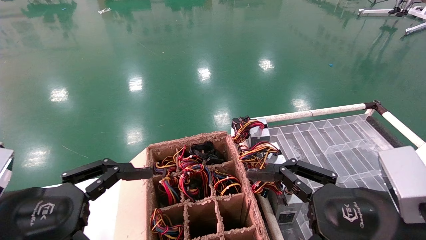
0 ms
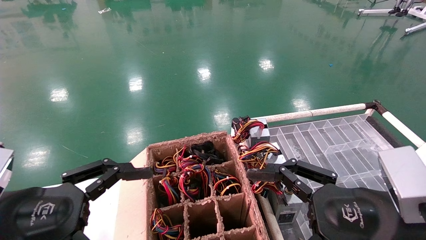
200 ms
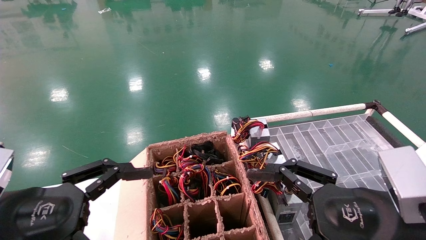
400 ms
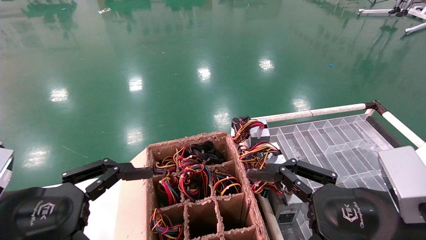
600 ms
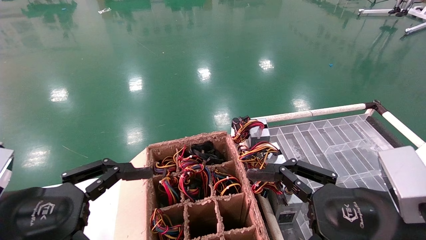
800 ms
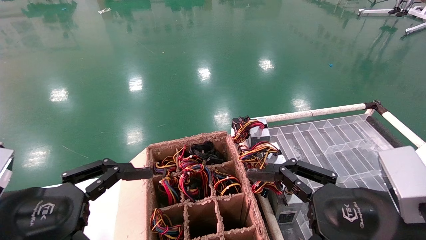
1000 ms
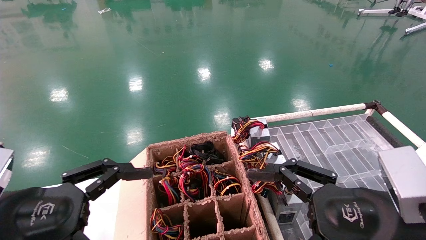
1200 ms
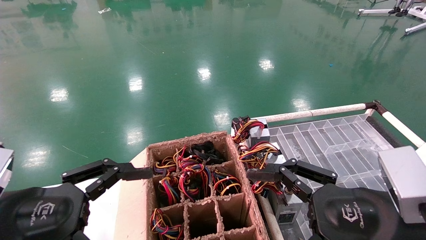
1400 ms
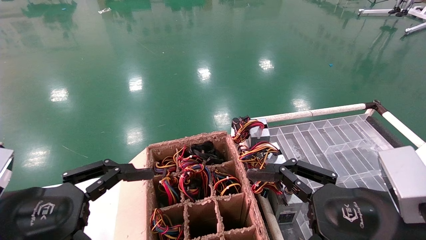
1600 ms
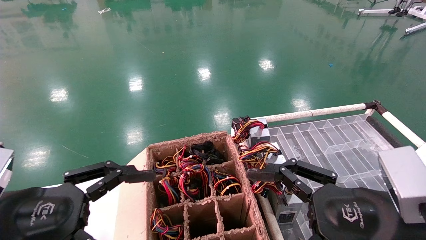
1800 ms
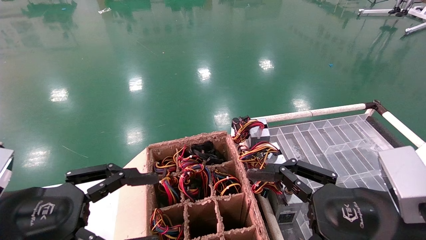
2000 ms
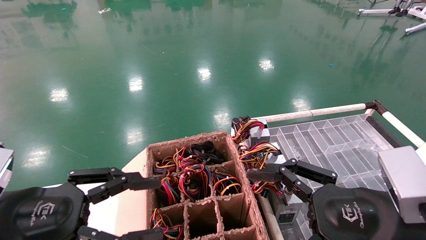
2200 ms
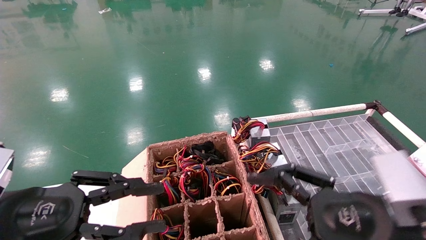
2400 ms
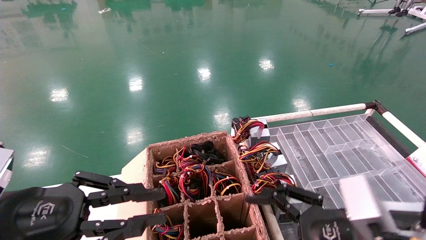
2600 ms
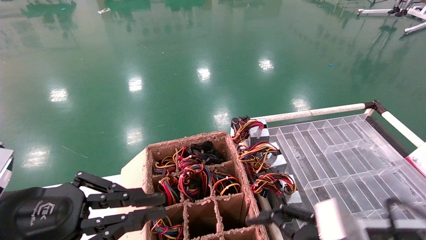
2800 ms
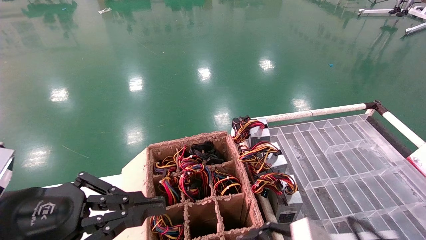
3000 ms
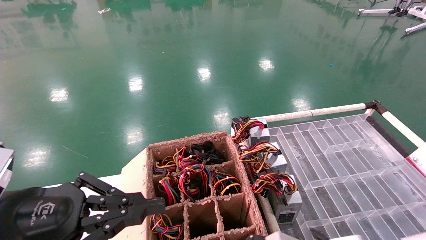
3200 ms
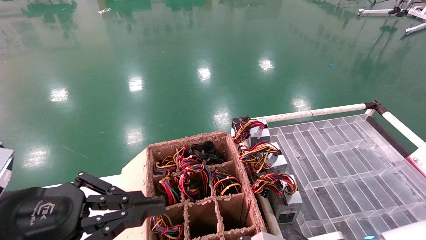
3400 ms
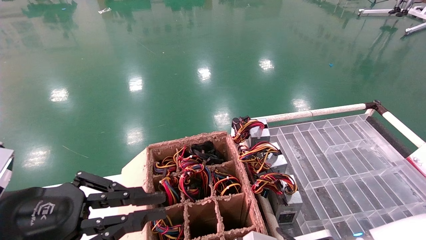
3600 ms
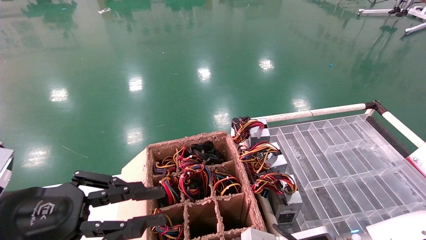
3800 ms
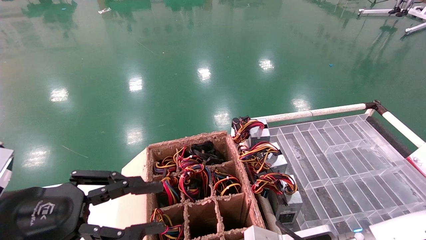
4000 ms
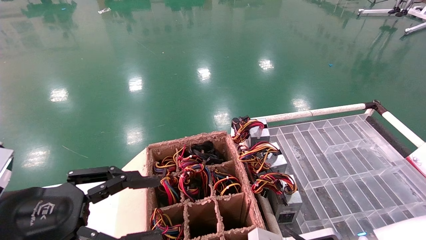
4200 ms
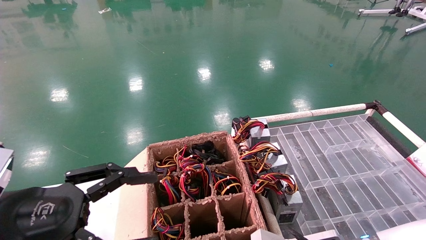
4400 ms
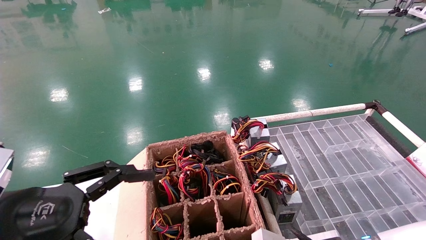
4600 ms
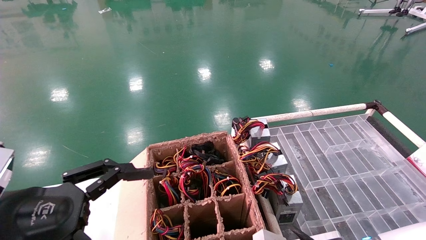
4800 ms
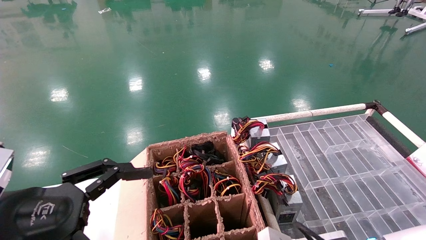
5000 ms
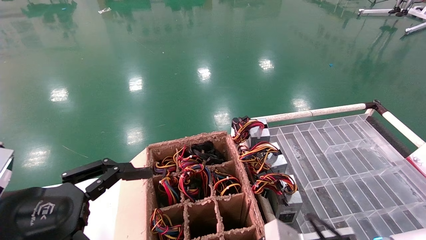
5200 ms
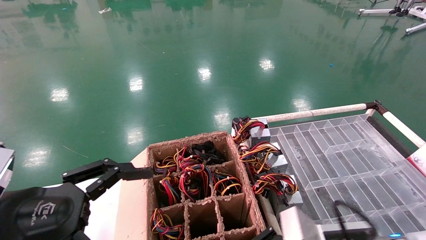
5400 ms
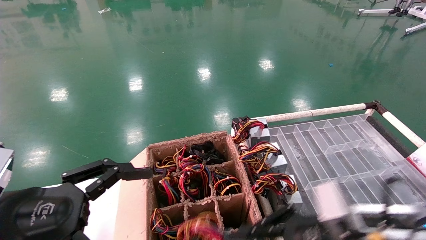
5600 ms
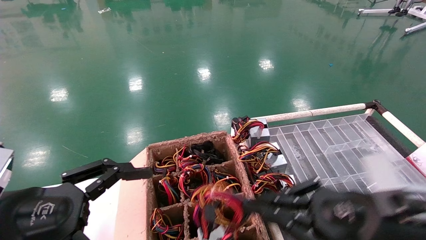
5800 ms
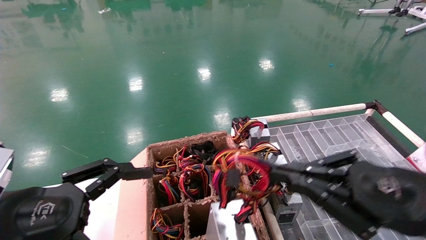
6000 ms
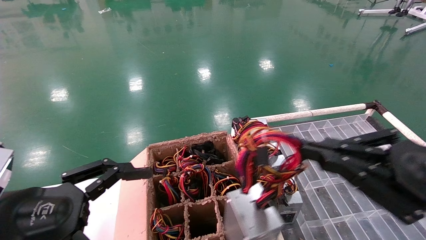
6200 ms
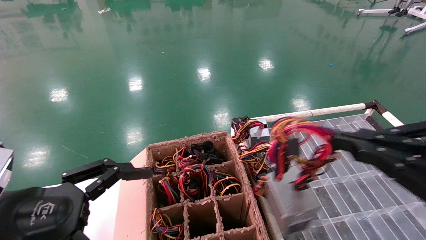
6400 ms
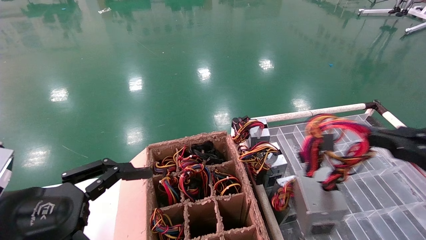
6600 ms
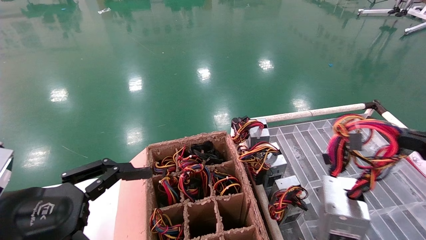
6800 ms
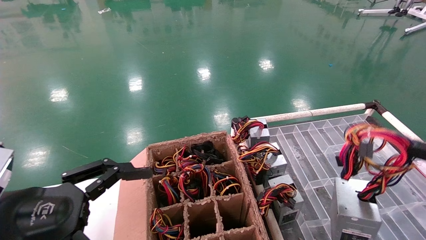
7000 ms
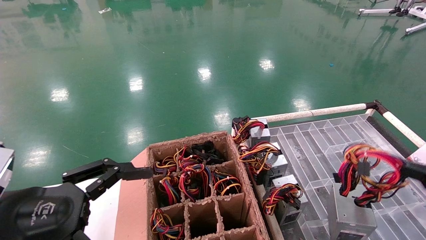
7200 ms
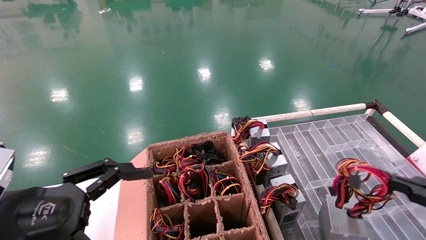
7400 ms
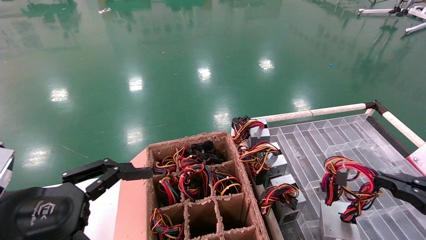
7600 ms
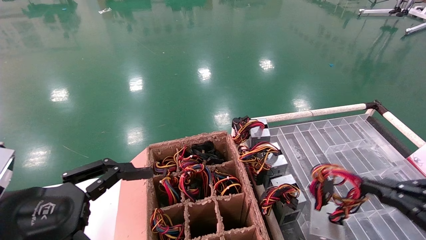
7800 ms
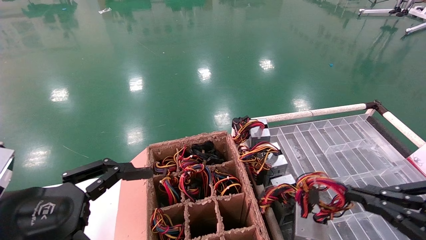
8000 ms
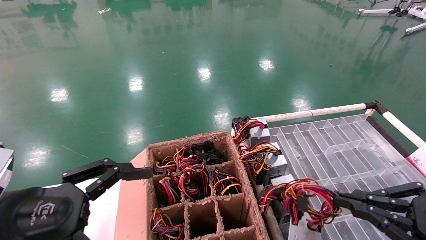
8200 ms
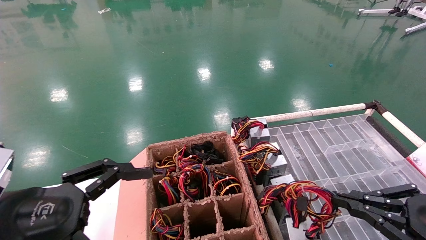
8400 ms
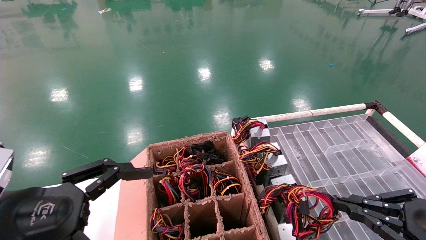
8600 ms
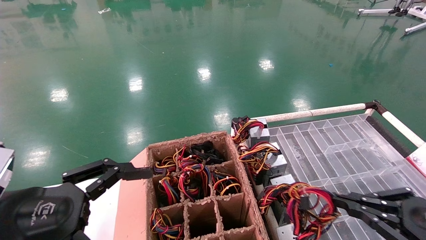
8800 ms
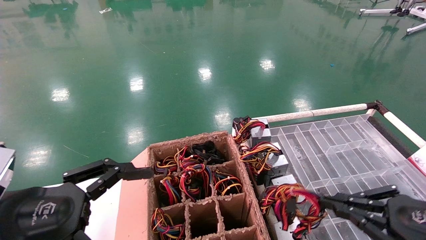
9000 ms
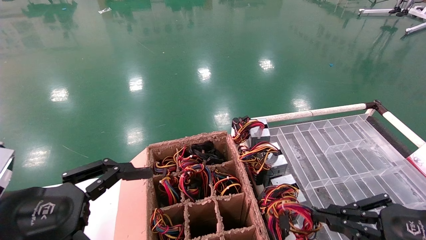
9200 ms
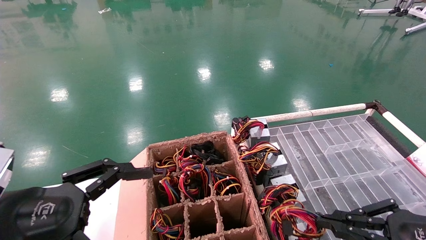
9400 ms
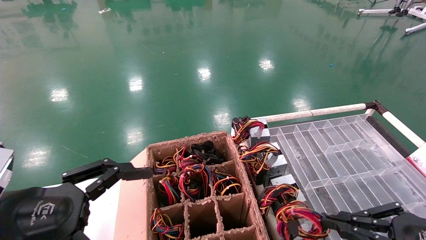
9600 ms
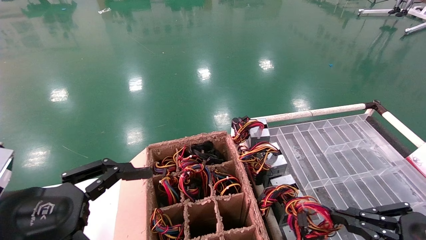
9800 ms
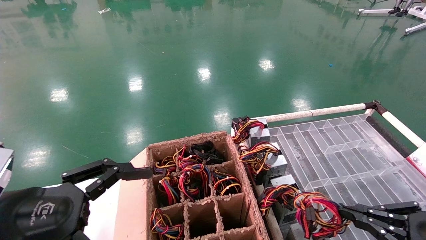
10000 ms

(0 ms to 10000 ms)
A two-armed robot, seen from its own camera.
Step, 3200 ms - 5200 ms: Grab and lift the power supply from the large box.
0 ms - 1400 ms: Neither gripper changes place.
1400 ms - 2800 ms: The right gripper travels downward by roughly 5 cm. Meanwhile the left gripper closes.
2800 ms - 4200 ms: The right gripper heads to the left, covering about 5 cm, and closes up.
4200 ms - 5800 ms: The right gripper is displaced upward and to the right by some 10 cm, and closes up; the left gripper opens up.
5800 ms - 7200 ms: The right gripper is displaced to the right and backward by approximately 20 cm.
7200 ms - 8600 ms: The right gripper heads forward, covering some 5 cm.
8600 ms - 10000 ms: There are only small adjustments of the grippers.

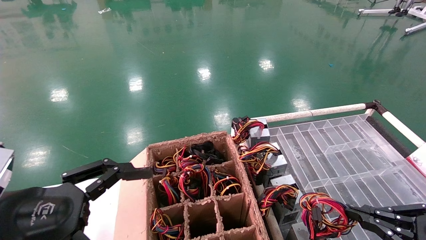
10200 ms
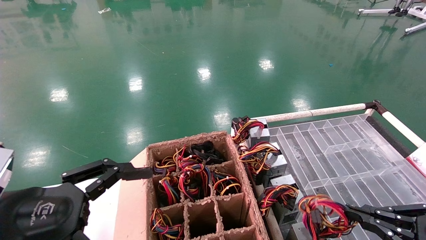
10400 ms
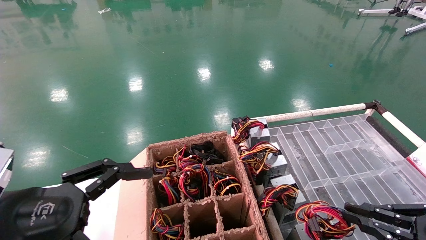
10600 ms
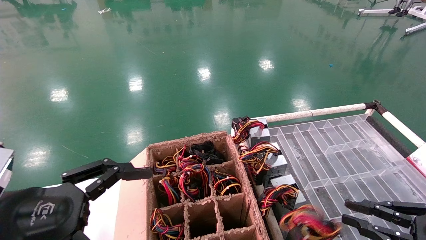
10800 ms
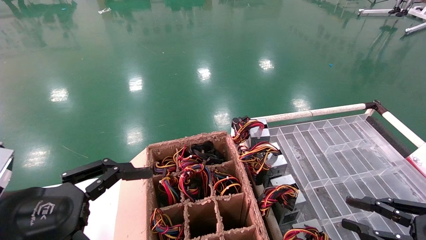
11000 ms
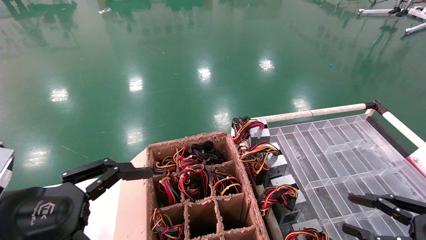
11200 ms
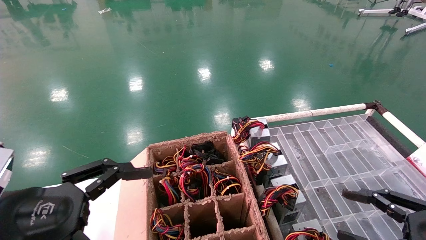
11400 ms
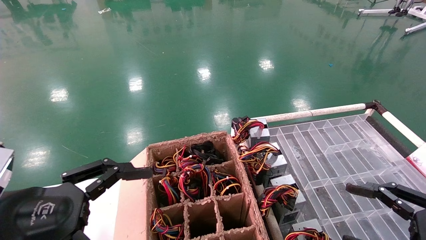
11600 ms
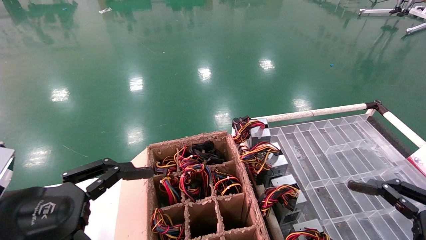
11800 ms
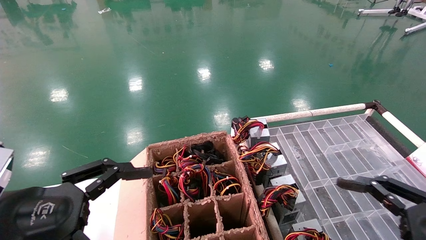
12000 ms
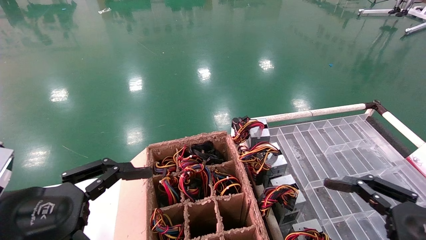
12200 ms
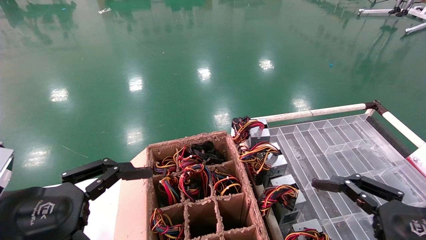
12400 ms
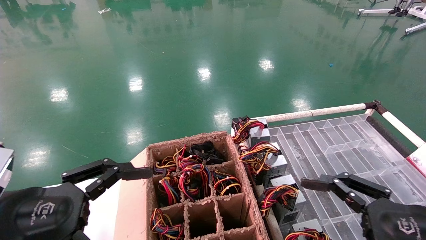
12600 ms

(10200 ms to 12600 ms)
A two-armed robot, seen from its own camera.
10200 ms - 11400 ms: The right gripper opens.
11400 ms - 12600 ms: The right gripper travels to the left by approximately 10 cm, and opens its fingers.
